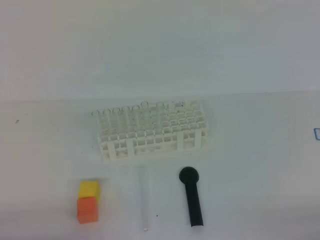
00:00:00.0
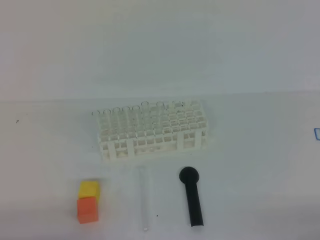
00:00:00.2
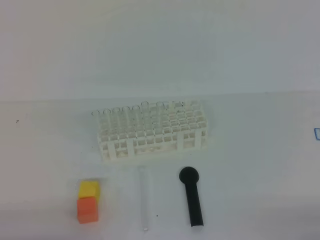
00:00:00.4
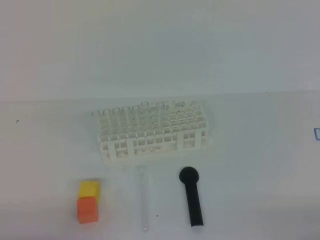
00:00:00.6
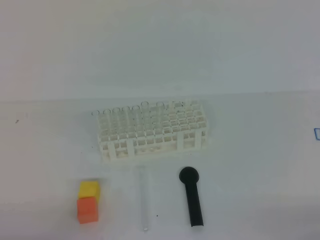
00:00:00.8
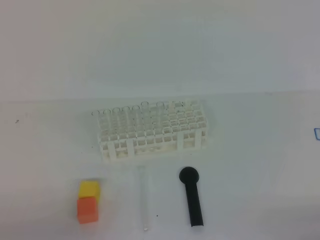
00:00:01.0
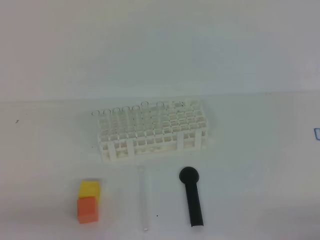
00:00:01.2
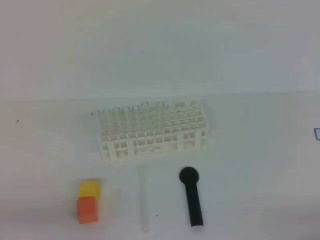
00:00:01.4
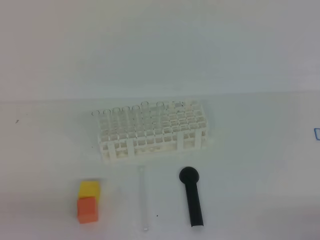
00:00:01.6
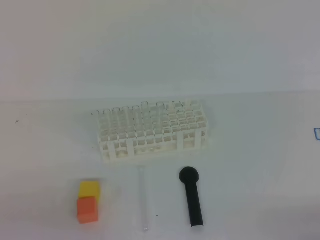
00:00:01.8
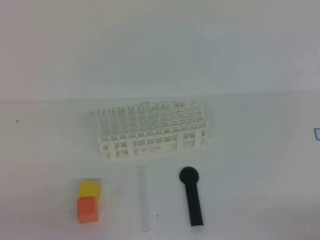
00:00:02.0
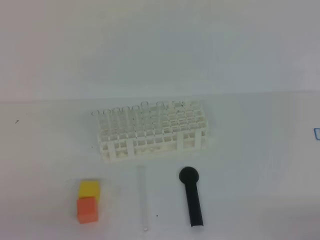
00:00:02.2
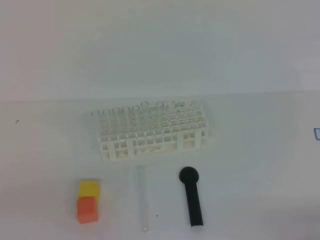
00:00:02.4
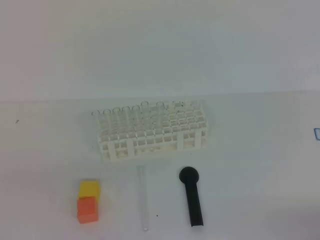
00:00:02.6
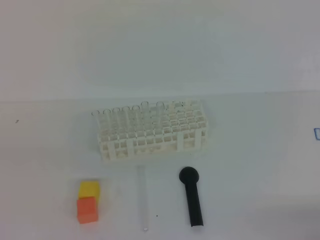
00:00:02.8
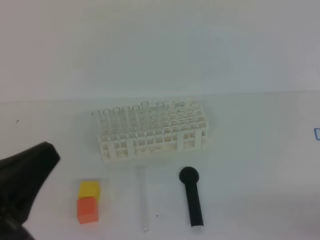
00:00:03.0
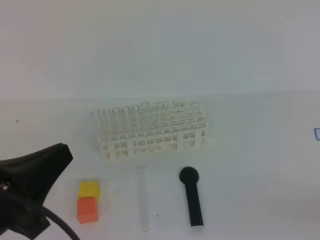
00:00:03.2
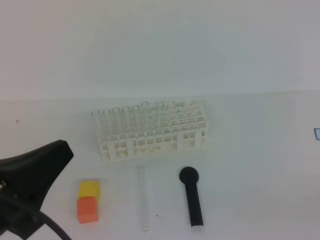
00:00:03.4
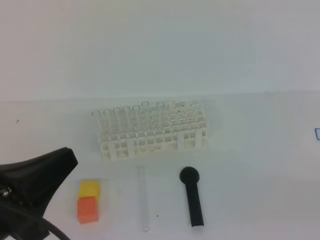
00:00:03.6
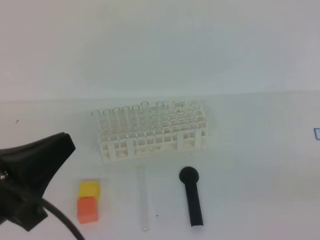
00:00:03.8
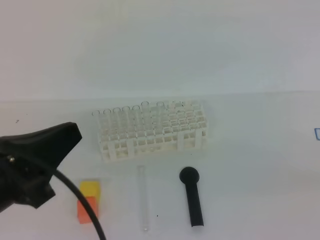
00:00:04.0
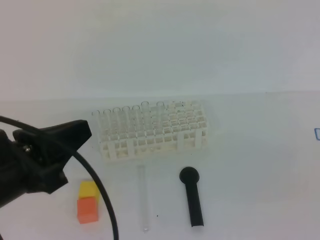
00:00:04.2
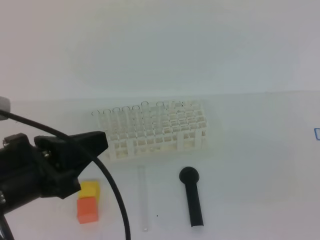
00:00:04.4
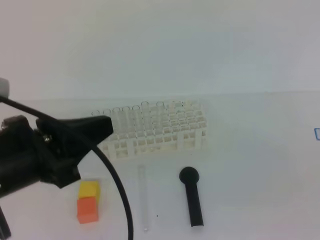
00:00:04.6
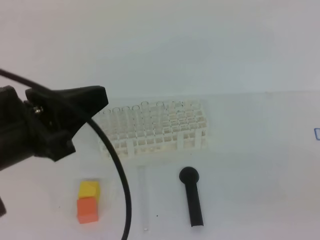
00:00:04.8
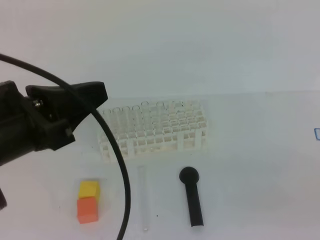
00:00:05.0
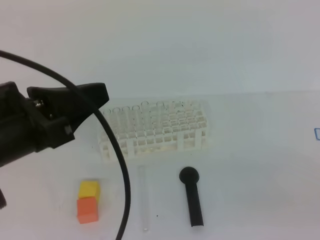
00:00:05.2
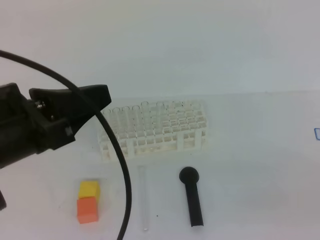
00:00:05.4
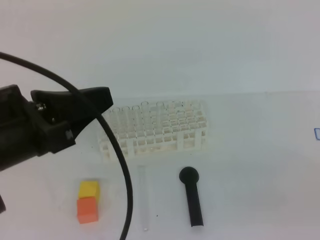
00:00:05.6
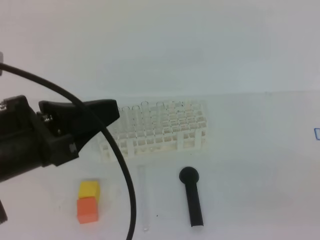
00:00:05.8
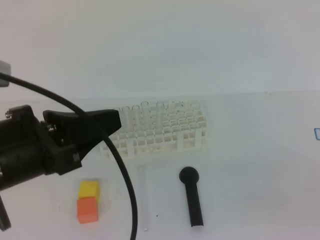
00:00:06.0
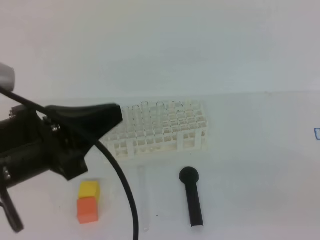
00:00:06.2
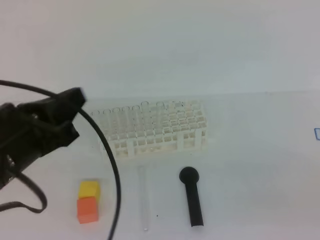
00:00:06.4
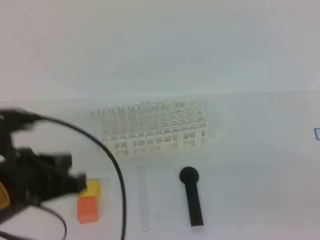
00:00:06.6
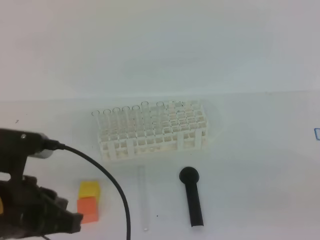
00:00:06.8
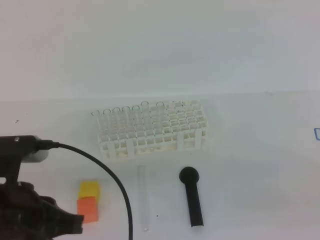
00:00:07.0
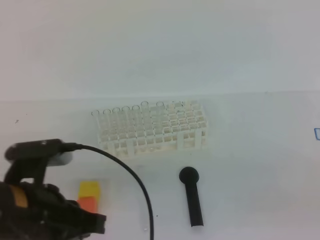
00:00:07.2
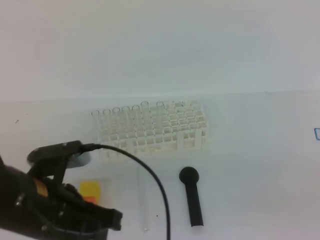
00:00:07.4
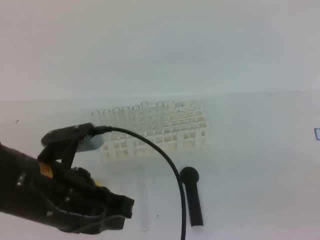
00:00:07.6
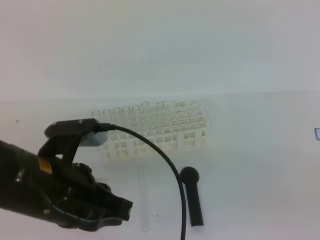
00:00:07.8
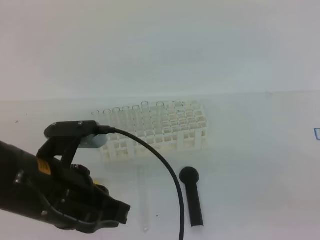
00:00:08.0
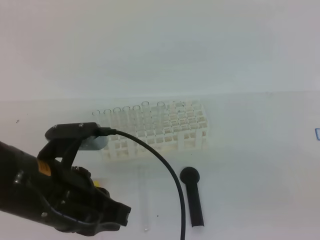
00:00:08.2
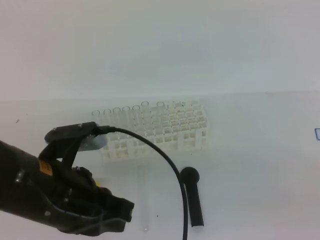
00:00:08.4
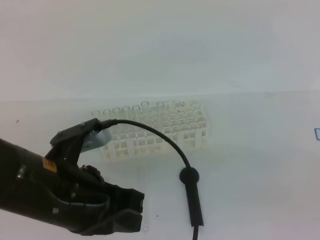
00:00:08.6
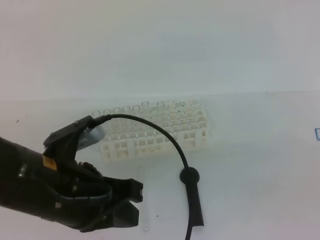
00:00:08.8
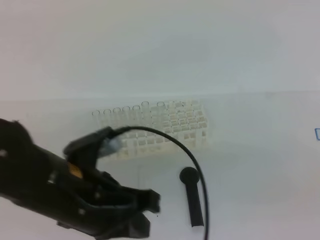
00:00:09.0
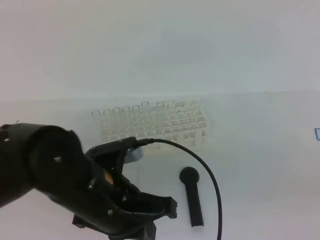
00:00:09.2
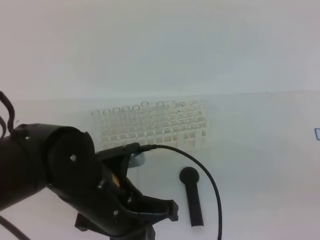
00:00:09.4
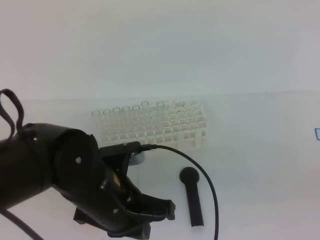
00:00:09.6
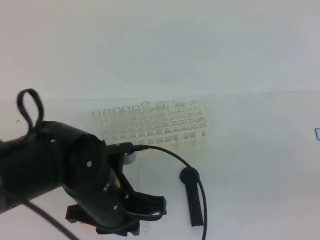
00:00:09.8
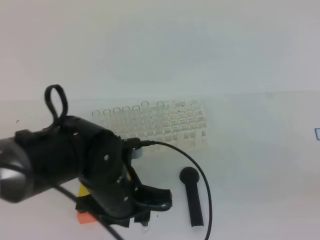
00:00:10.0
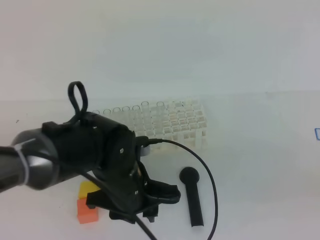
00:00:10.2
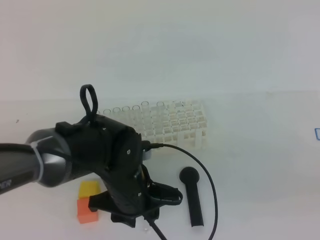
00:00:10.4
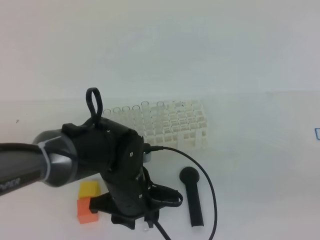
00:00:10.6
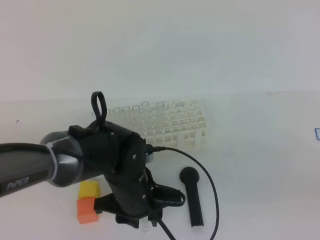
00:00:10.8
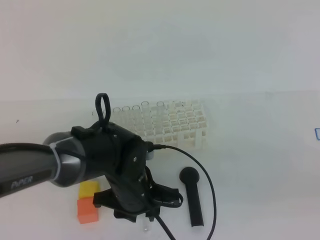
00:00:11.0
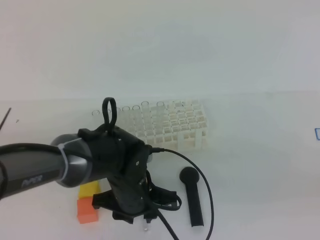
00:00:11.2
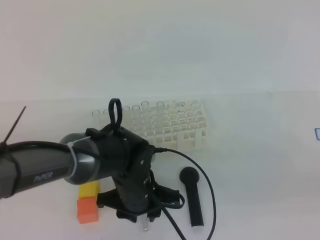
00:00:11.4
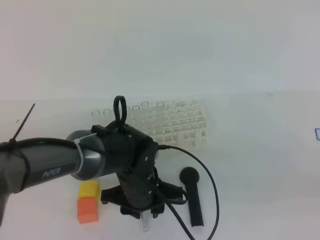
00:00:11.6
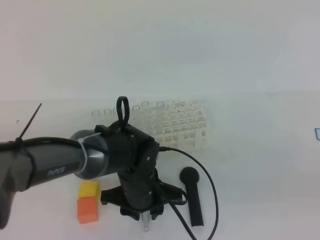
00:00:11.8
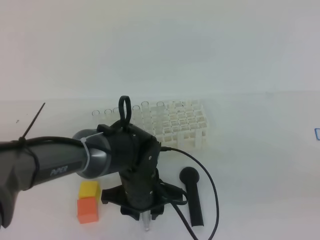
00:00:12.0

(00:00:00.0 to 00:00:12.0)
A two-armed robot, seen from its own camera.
00:00:01.6 - 00:00:03.0: The left gripper travels upward and to the right by approximately 10 cm.
00:00:03.0 - 00:00:04.4: The right gripper goes about 15 cm upward, while the left gripper is displaced forward by roughly 5 cm.
00:00:04.4 - 00:00:06.0: The grippers stay close to where they were, moving slightly.
00:00:06.0 - 00:00:07.6: The left gripper moves downward, about 5 cm.
00:00:07.6 - 00:00:09.0: The grippers make only small movements.
00:00:09.0 - 00:00:10.4: The left gripper heads downward, forward and to the right, covering about 15 cm, and opens its fingers.
00:00:10.4 - 00:00:12.0: The left gripper heads downward, covering approximately 5 cm.

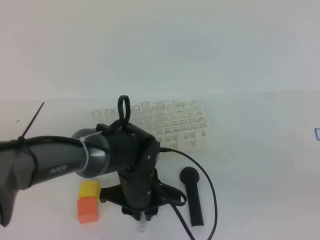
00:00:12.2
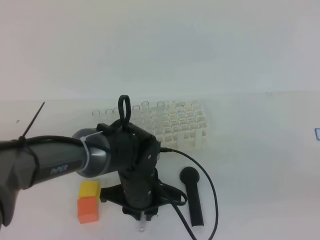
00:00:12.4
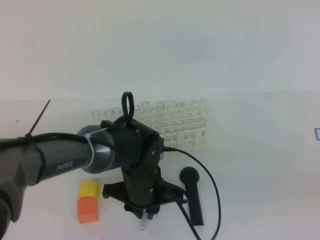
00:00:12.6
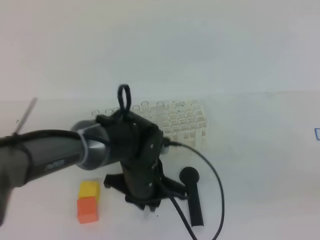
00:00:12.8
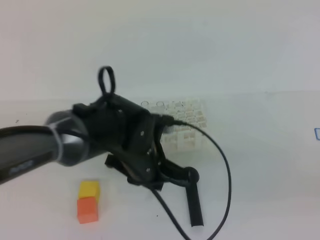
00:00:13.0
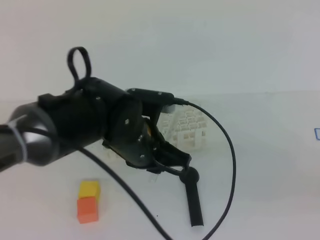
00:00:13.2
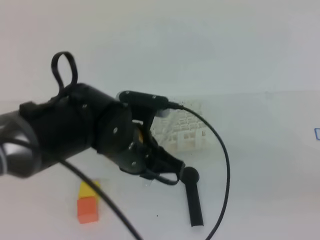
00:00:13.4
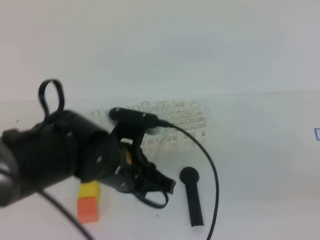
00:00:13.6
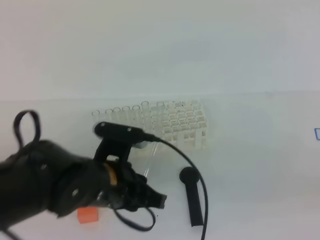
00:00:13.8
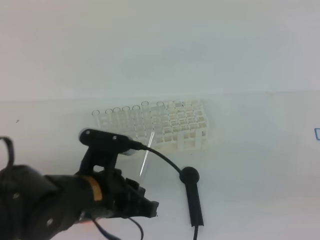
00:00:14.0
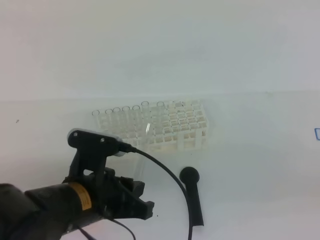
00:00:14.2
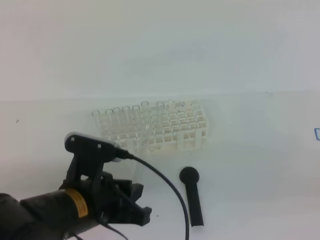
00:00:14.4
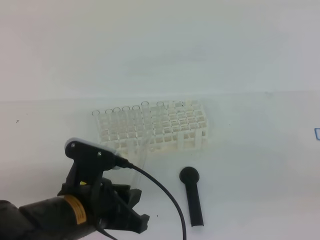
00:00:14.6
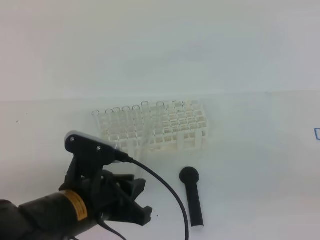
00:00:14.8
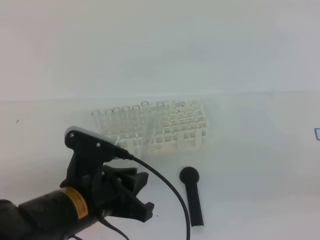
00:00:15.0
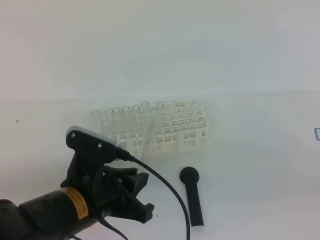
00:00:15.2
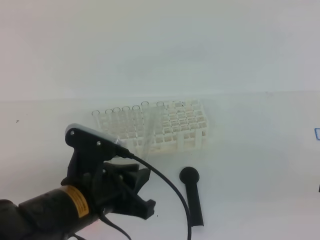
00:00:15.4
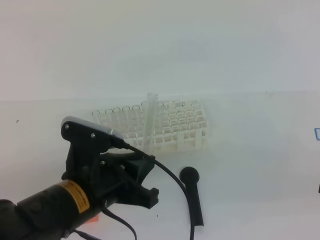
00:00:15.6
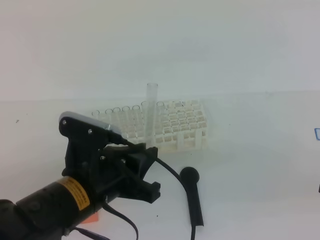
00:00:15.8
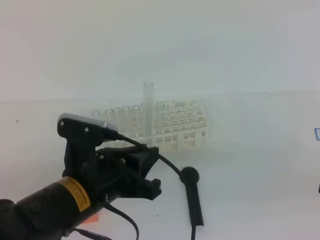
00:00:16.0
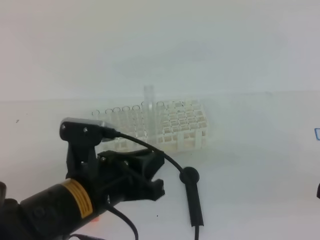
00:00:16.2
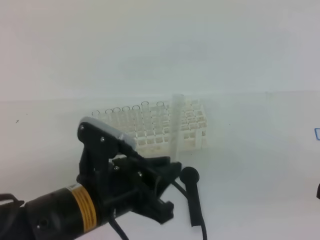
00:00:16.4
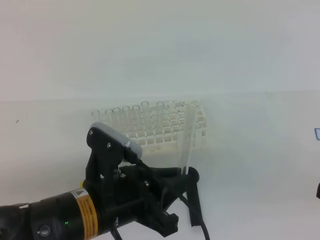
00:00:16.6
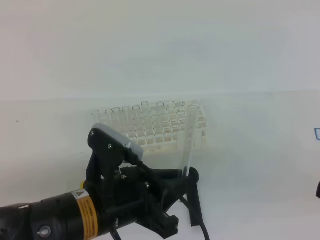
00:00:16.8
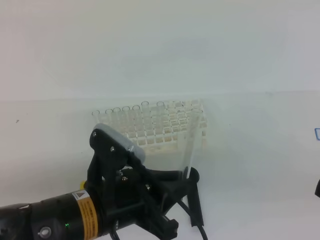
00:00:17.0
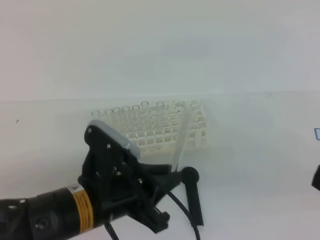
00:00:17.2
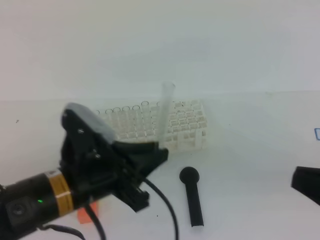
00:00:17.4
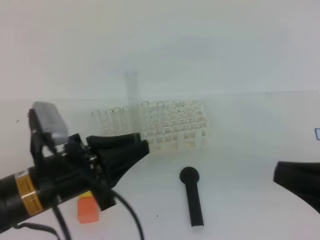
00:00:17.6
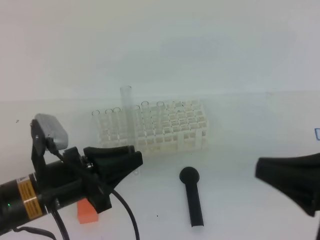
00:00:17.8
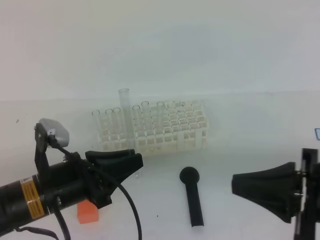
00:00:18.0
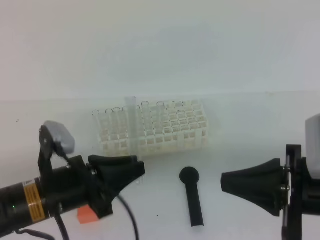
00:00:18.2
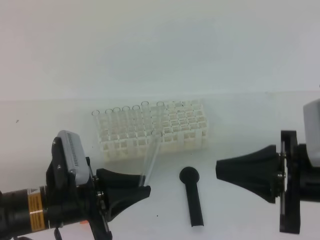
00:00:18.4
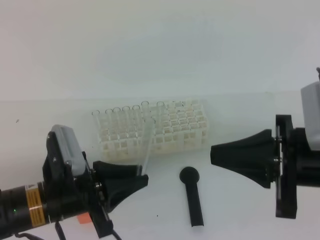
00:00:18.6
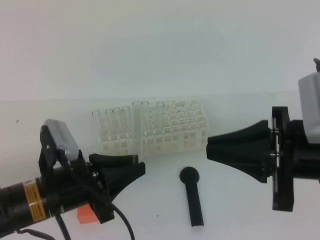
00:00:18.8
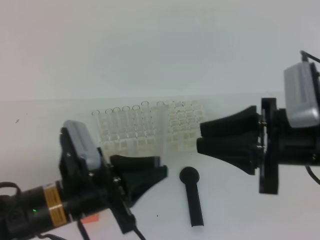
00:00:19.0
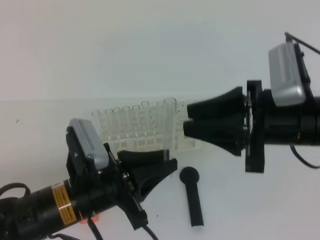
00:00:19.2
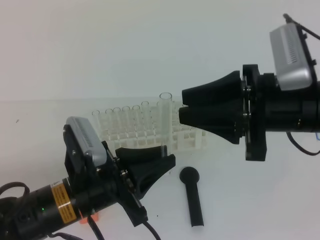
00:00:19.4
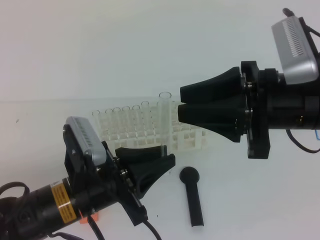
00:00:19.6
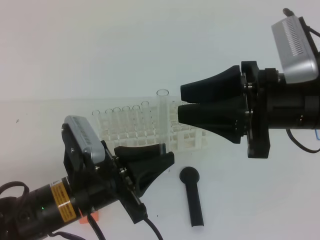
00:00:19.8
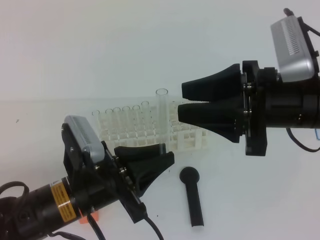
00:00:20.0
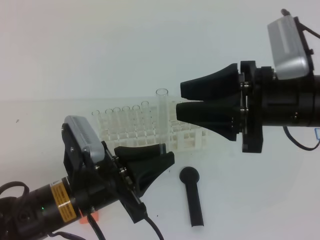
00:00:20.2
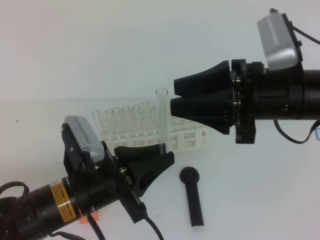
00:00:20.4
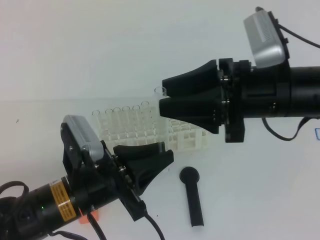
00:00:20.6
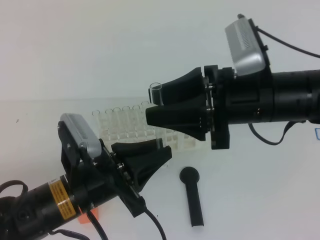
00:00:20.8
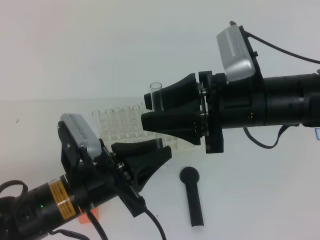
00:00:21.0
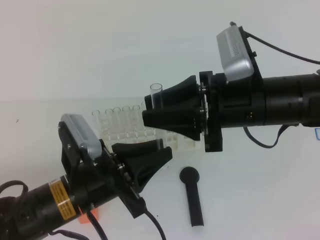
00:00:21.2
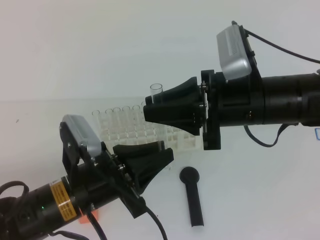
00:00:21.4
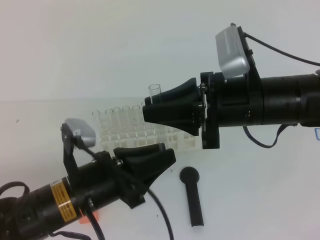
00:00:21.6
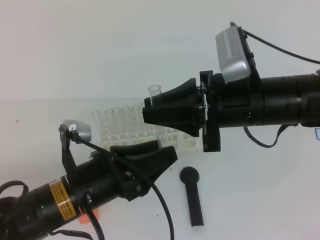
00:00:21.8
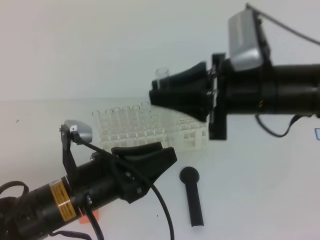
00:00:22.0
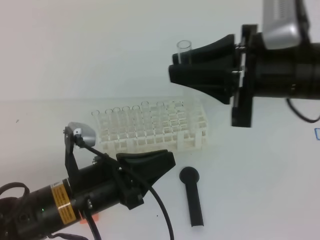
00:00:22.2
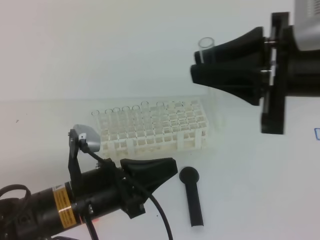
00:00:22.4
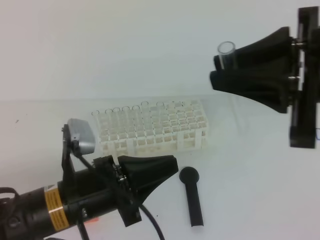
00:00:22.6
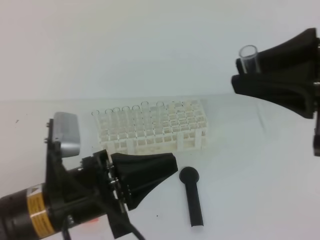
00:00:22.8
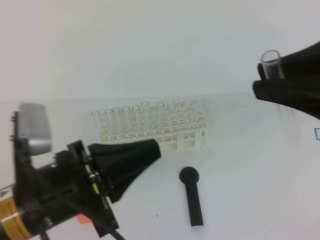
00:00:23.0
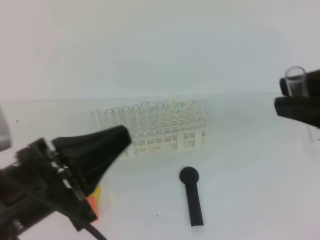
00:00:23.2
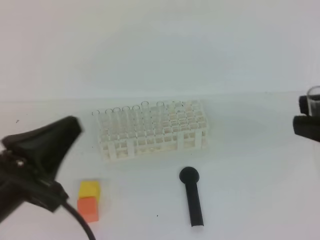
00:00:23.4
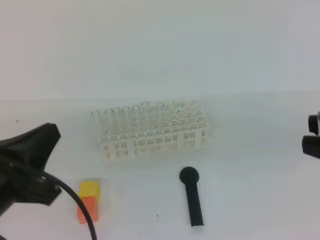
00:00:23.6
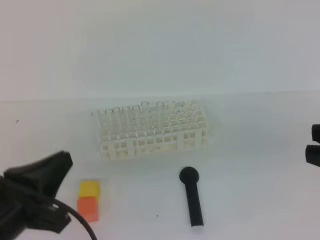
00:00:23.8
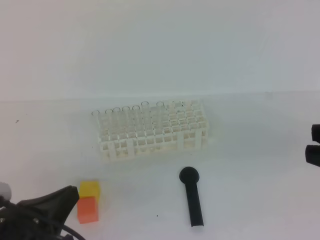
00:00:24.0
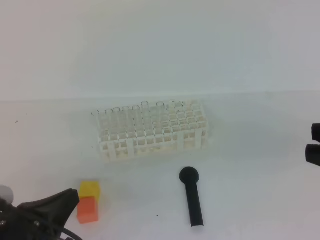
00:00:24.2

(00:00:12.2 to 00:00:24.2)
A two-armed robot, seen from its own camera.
00:00:12.2 - 00:00:13.8: The left gripper goes about 10 cm upward and backward.
00:00:13.8 - 00:00:15.2: The left gripper ends up roughly 5 cm from where it was.
00:00:16.6 - 00:00:18.2: The right gripper heads forward, to the left and downward, covering roughly 10 cm. Meanwhile the left gripper shifts roughly 5 cm to the left.
00:00:18.2 - 00:00:19.8: The right gripper shifts roughly 10 cm forward and upward, and opens its fingers.
00:00:19.8 - 00:00:21.2: The right gripper moves roughly 5 cm.
00:00:21.2 - 00:00:22.6: The left gripper closes. Meanwhile the right gripper travels upward, backward and to the right by about 15 cm, and closes up.
00:00:22.6 - 00:00:24.2: The right gripper heads backward and to the right, covering roughly 10 cm. Meanwhile the left gripper is displaced to the left and backward by approximately 10 cm.
